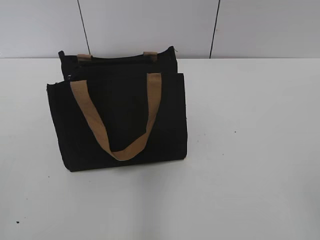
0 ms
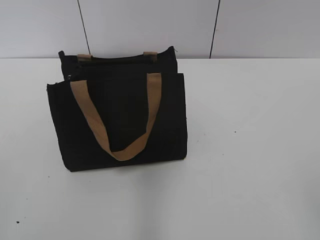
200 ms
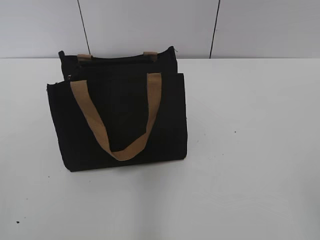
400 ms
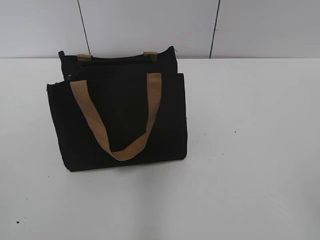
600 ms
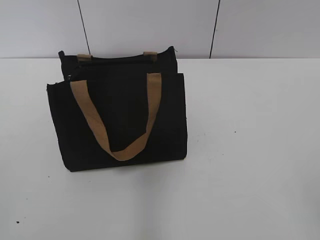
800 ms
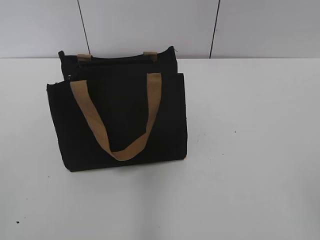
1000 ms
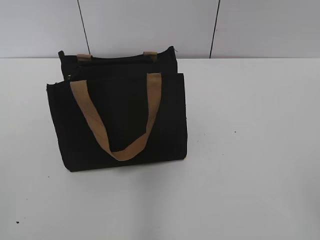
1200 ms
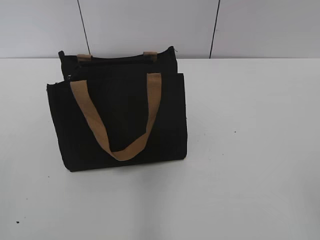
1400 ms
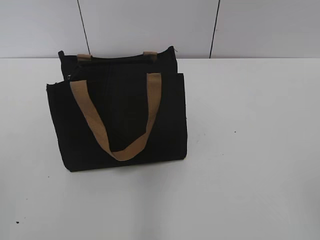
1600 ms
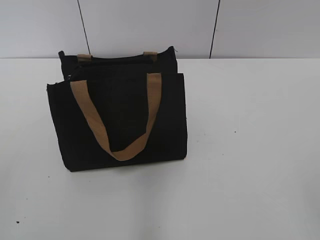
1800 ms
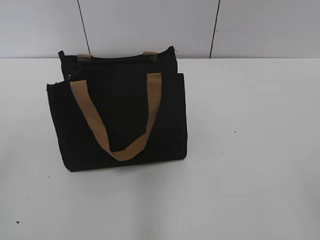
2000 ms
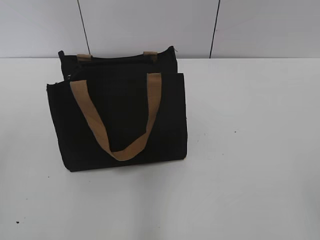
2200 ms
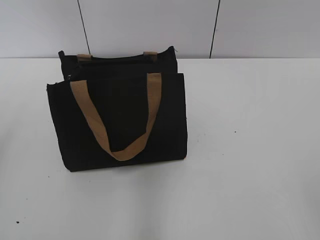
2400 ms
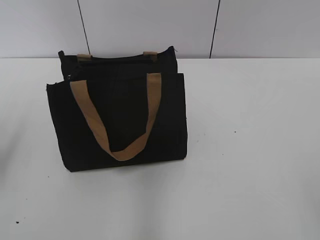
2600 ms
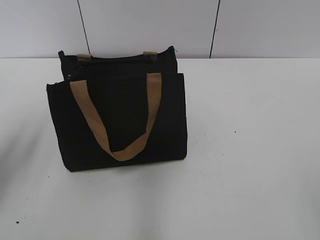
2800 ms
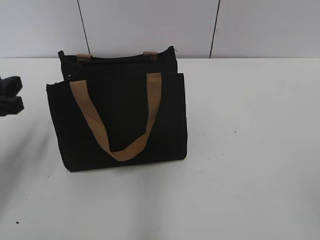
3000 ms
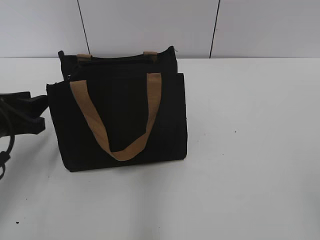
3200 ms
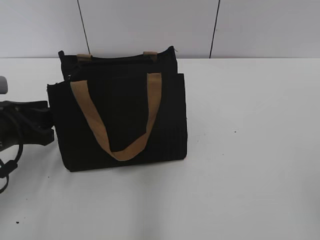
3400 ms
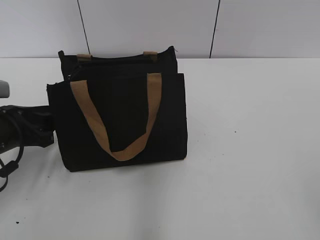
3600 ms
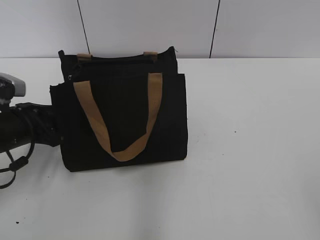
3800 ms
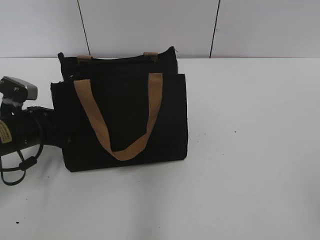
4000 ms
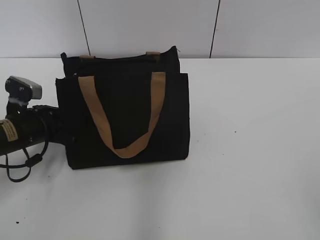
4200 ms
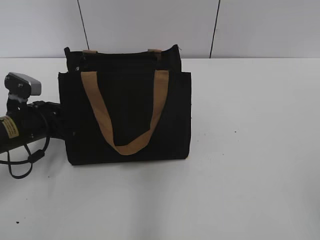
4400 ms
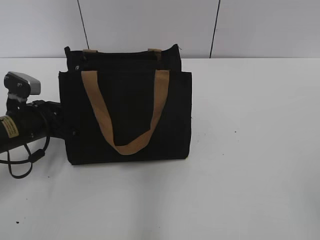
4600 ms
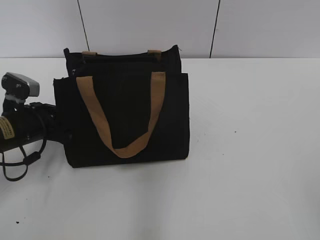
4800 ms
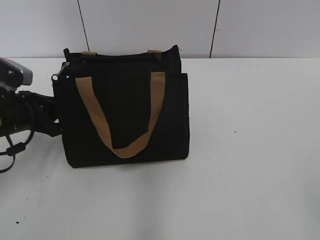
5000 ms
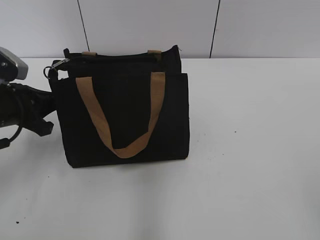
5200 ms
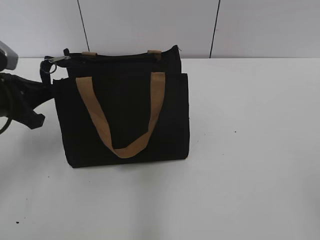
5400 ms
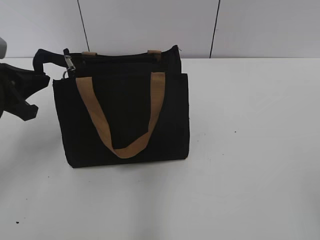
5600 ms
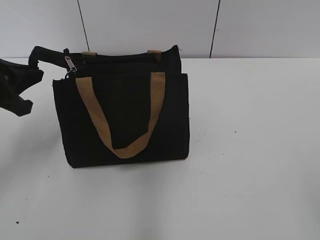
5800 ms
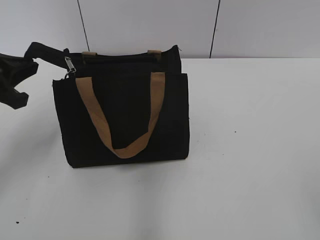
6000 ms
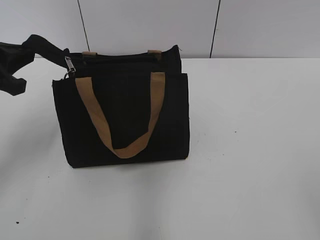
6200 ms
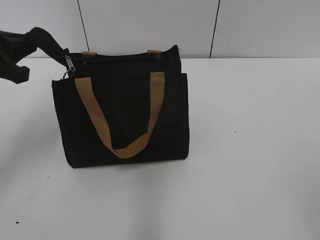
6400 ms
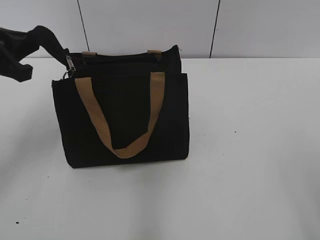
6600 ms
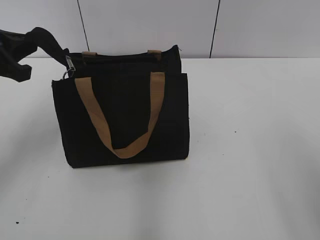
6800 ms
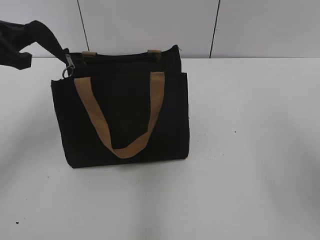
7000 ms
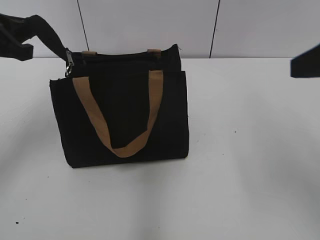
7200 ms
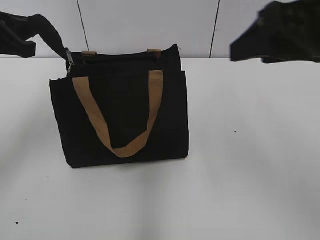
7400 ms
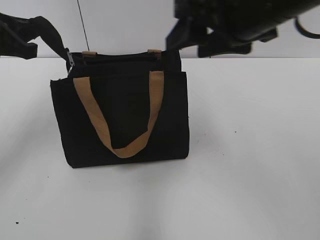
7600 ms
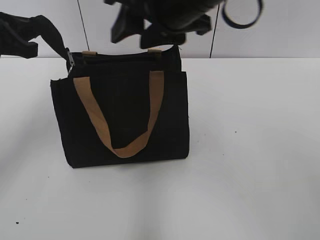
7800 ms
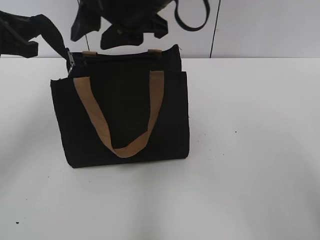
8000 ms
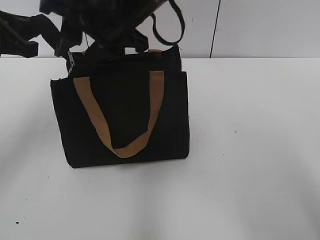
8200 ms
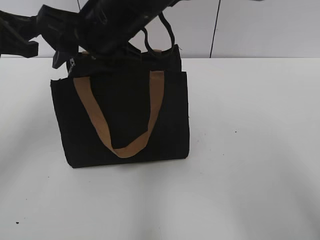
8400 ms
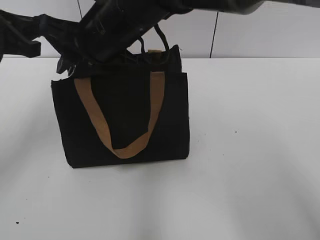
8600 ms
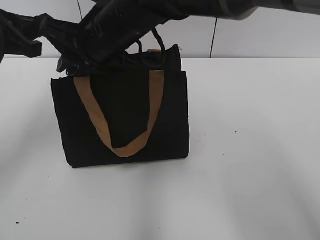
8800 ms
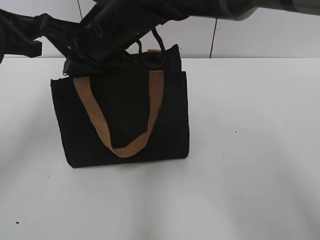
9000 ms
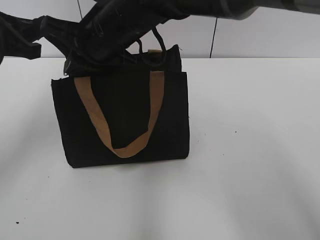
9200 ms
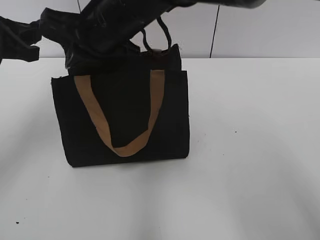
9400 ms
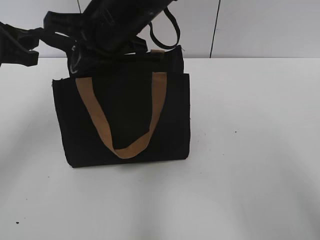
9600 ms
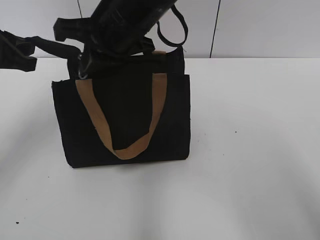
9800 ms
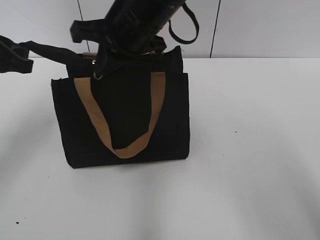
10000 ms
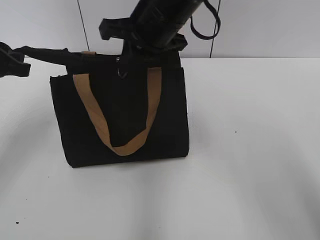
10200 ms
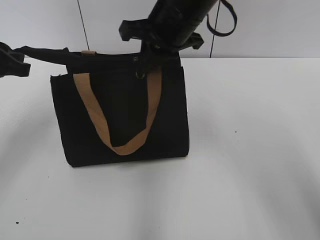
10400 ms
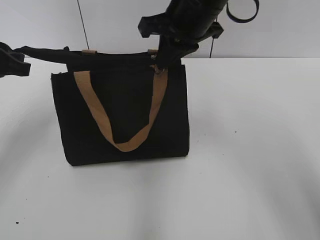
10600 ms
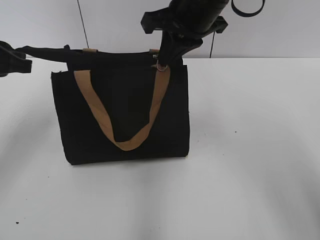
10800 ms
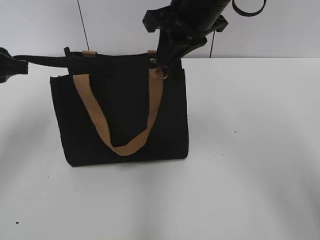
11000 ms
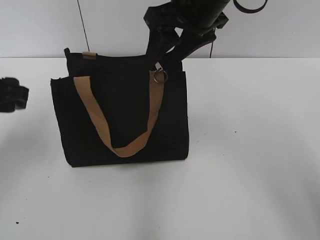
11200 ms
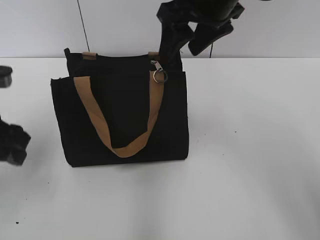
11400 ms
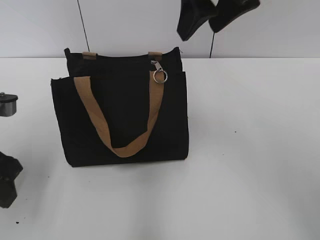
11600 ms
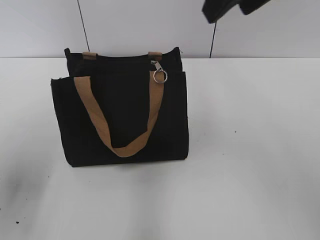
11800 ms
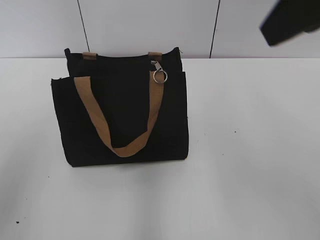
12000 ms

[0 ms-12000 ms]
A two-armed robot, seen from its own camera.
Step, 0 ms to 10800 ms: Zip up the bag with your right hand.
1600 ms to 3000 ms: The left gripper moves forward and downward, some 25 cm.
3000 ms to 4400 ms: The left gripper shifts about 10 cm downward and forward, and closes its fingers.
4400 ms to 6000 ms: The left gripper travels upward by some 15 cm.
6000 ms to 7600 ms: The right gripper moves forward and to the left, approximately 35 cm; the left gripper ends up about 5 cm from where it was.
7600 ms to 9000 ms: The right gripper travels to the left, forward and downward by some 20 cm, and closes its fingers.
9000 ms to 10400 ms: The right gripper travels to the right by about 10 cm.
10400 ms to 12000 ms: The left gripper is displaced backward by about 15 cm, and opens its fingers, while the right gripper is displaced backward, to the right and upward by about 25 cm, and opens its fingers.

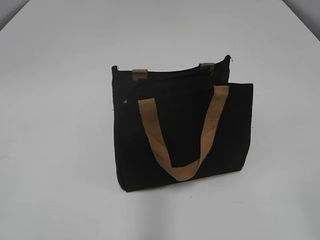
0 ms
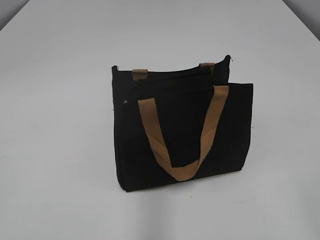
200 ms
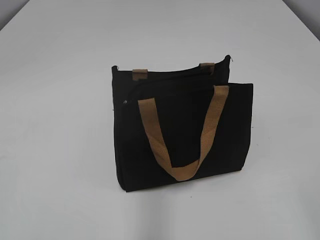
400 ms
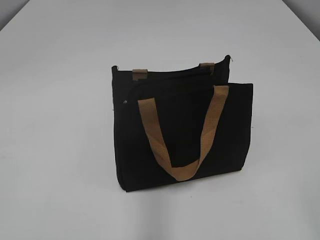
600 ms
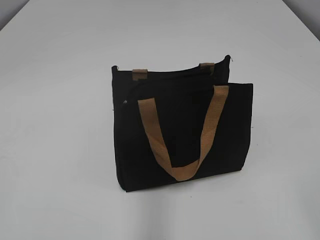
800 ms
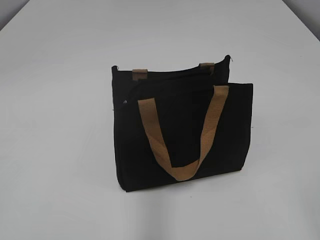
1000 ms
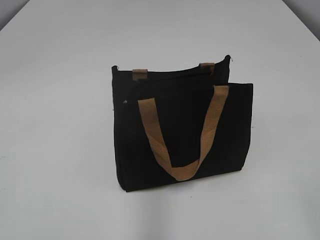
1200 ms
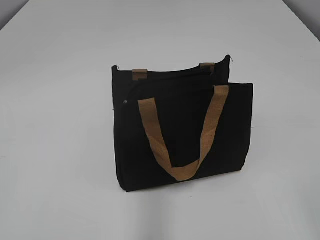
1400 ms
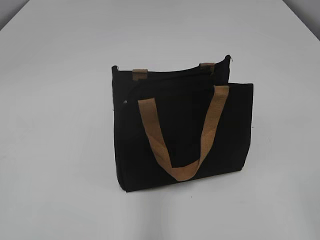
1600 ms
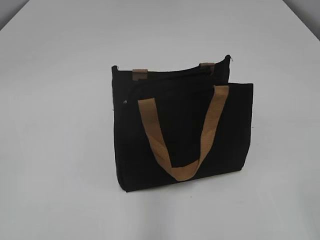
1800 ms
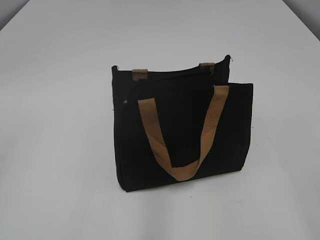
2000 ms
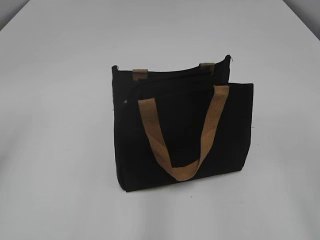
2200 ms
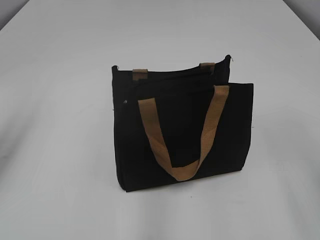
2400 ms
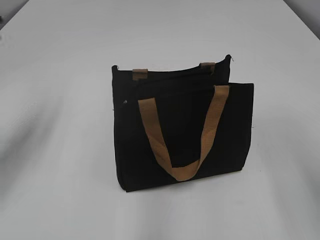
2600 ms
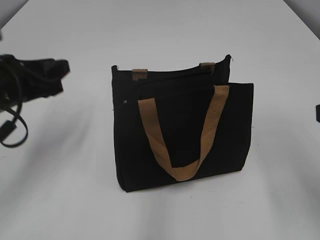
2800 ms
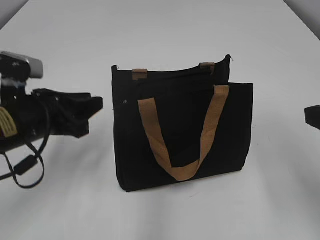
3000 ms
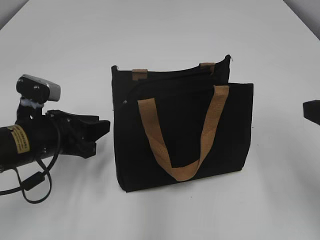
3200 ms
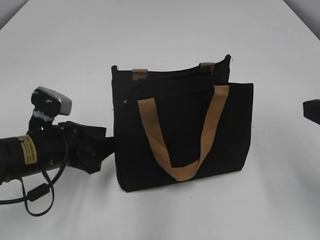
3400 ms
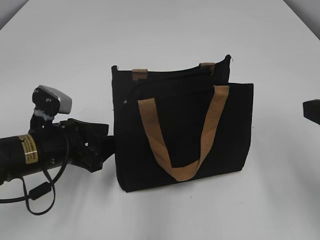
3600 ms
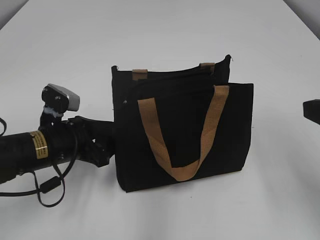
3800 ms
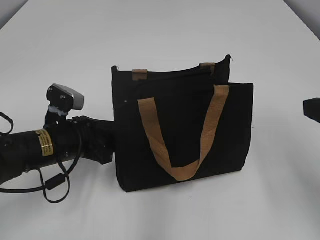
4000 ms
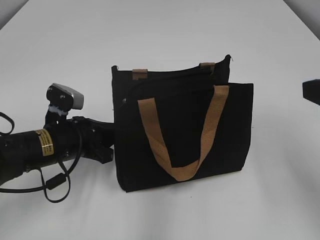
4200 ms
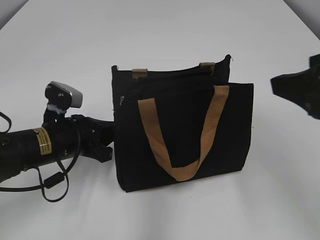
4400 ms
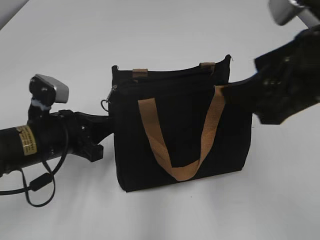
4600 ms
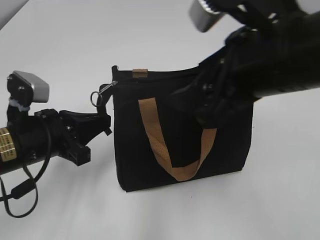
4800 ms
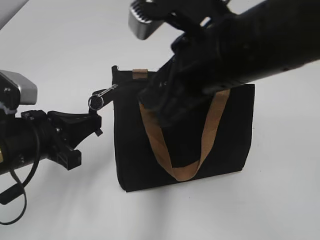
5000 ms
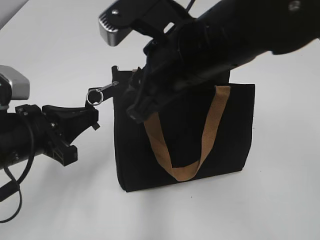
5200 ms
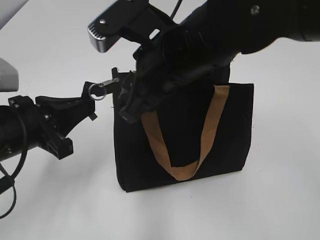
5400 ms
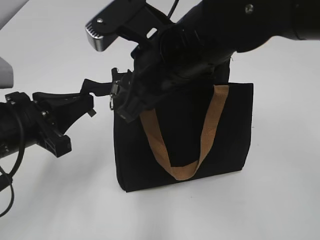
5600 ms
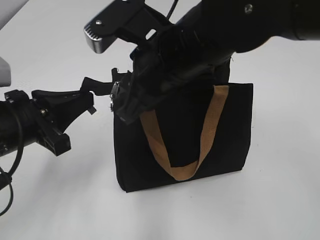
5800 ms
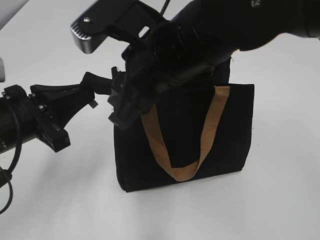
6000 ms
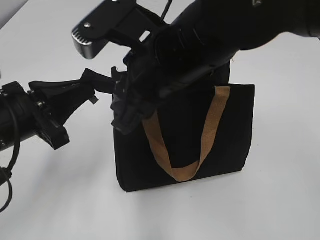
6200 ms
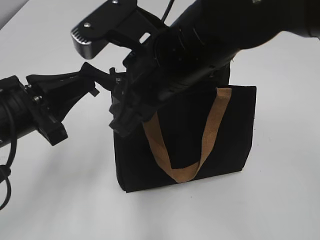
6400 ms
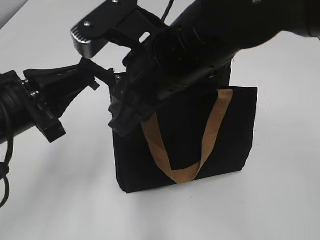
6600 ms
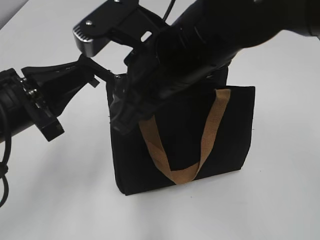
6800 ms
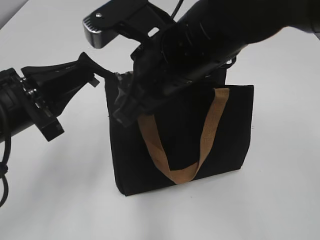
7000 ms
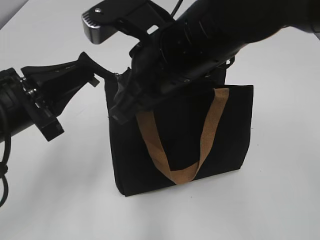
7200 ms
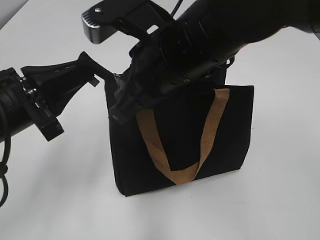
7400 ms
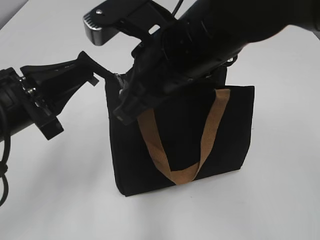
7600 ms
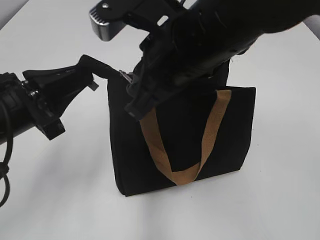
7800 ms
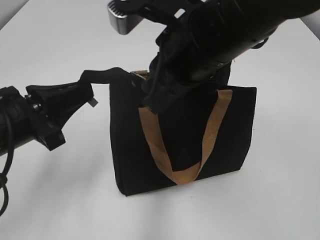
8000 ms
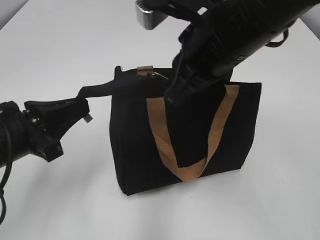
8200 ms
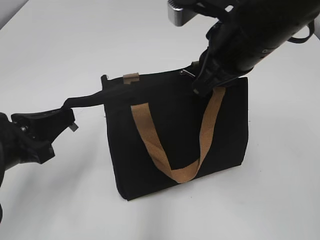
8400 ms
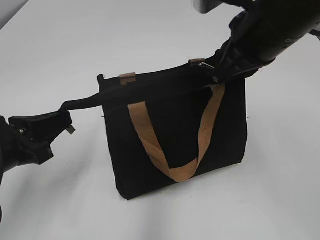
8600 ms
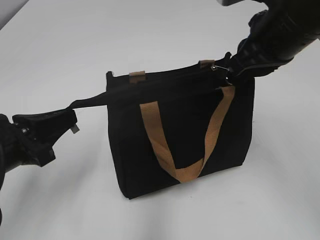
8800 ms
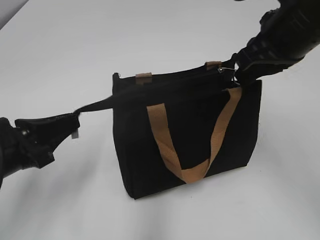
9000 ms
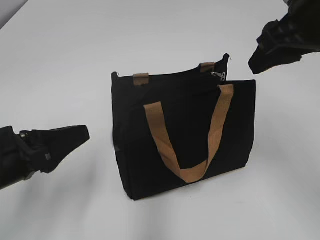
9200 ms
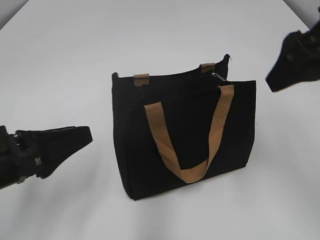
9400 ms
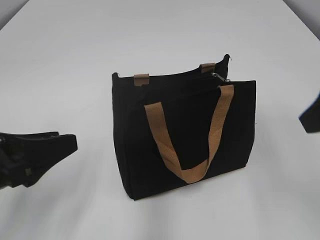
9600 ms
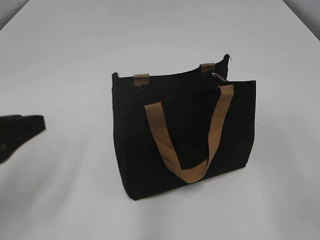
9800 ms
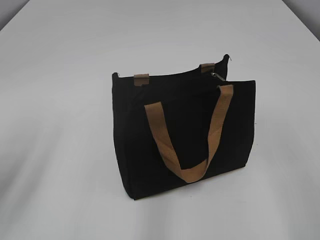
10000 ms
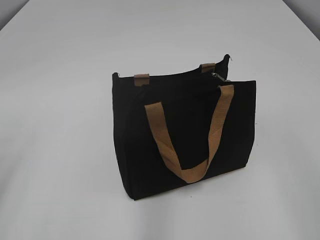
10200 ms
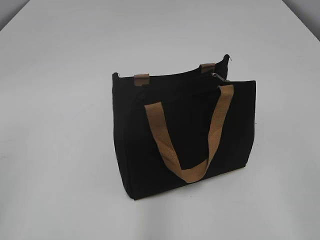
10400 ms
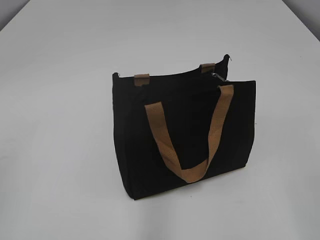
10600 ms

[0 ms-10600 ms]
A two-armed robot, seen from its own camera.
Step, 0 ms to 9000 ms: Zip up the bag with your right hand.
1600 ms to 3000 ms: The left gripper goes roughly 30 cm forward and to the right, while the right gripper travels forward by about 15 cm.
3000 ms to 4600 ms: The left gripper shifts about 5 cm downward, and closes its fingers. Meanwhile the right gripper is displaced to the left by roughly 5 cm.
4600 ms to 6000 ms: The left gripper travels upward and backward by some 10 cm. The right gripper shifts roughly 20 cm to the left and forward, and closes up.
6000 ms to 7600 ms: The right gripper closes.
7600 ms to 9000 ms: The right gripper moves to the right, about 15 cm, while the left gripper moves roughly 5 cm.
9000 ms to 10600 ms: The right gripper shifts about 25 cm backward, and opens. The left gripper moves upward, backward and to the left, approximately 20 cm, and opens up.
